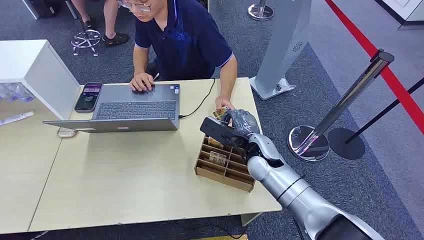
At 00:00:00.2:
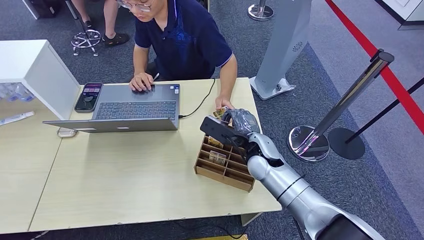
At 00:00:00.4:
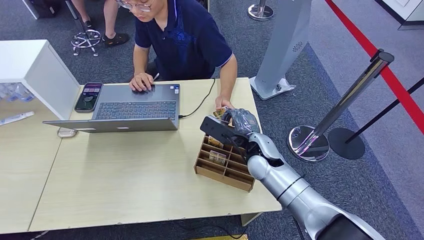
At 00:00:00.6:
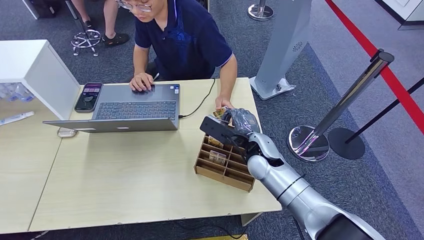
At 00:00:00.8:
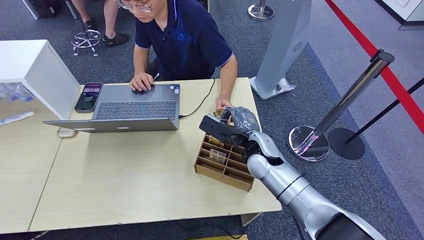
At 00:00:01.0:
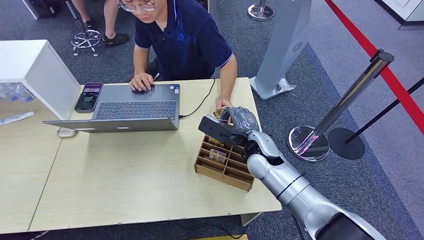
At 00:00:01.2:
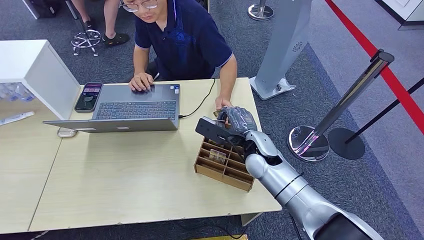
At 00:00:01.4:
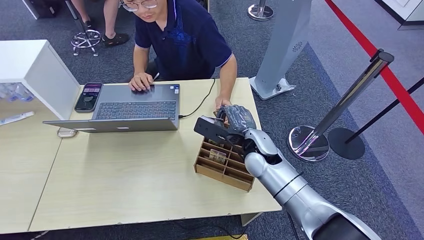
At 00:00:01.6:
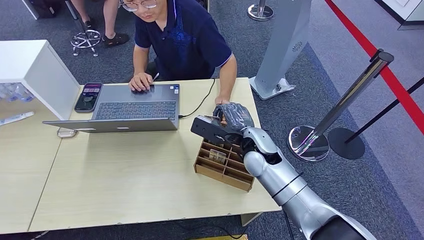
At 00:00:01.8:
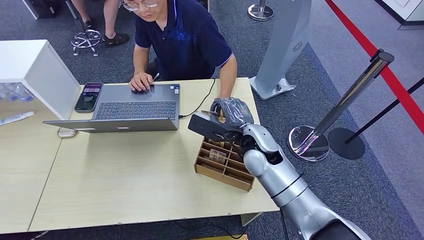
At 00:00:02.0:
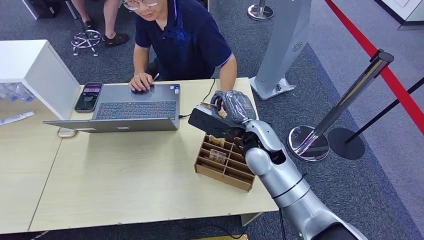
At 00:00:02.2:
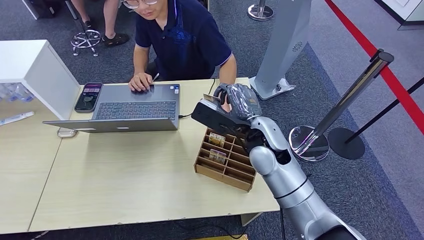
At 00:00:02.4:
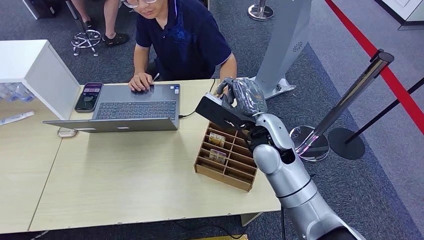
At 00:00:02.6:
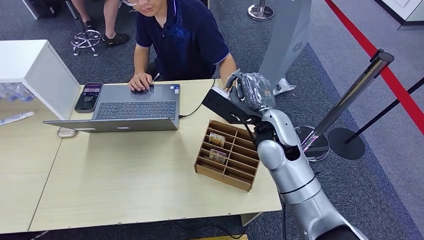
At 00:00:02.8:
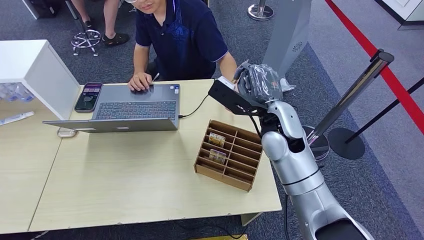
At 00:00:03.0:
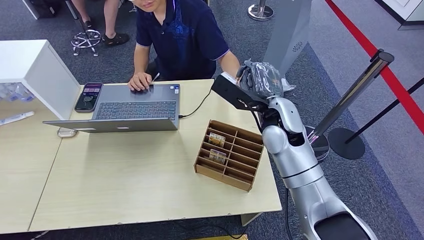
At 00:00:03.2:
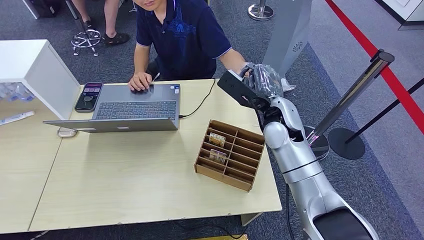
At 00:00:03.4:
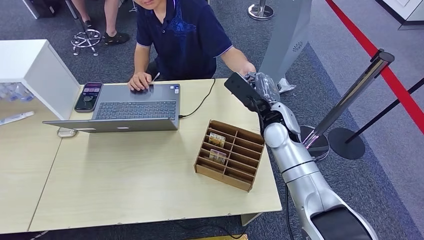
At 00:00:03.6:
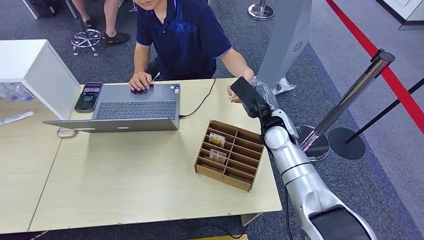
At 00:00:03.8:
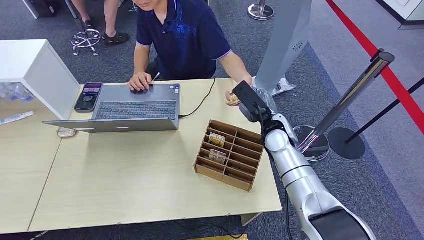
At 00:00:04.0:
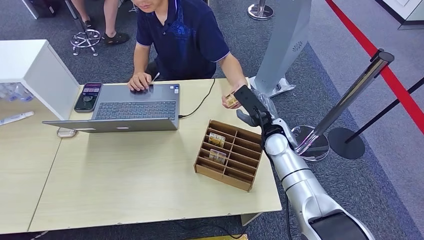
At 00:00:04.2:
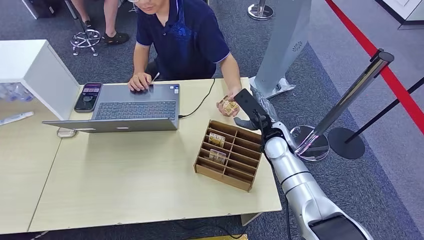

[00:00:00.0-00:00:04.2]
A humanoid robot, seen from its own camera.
Step, 00:00:00.0 to 00:00:02.0: Pick up the key card from the card box.
Step, 00:00:03.6 to 00:00:04.0: Hand the key card to the target.
00:00:01.4 to 00:00:02.8: The right hand heads upward, covering approximately 10 cm.
00:00:02.8 to 00:00:04.2: The right hand travels downward by roughly 10 cm.
